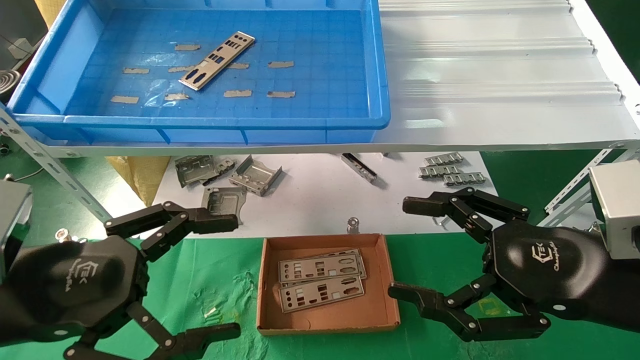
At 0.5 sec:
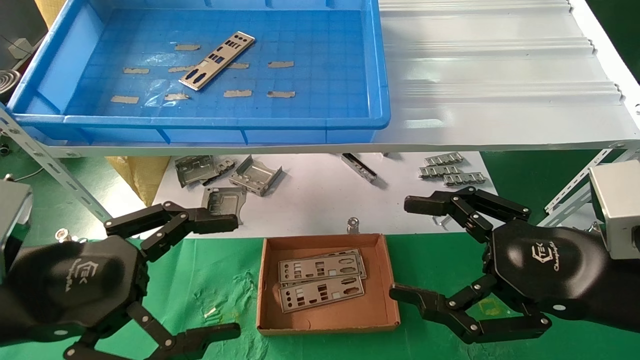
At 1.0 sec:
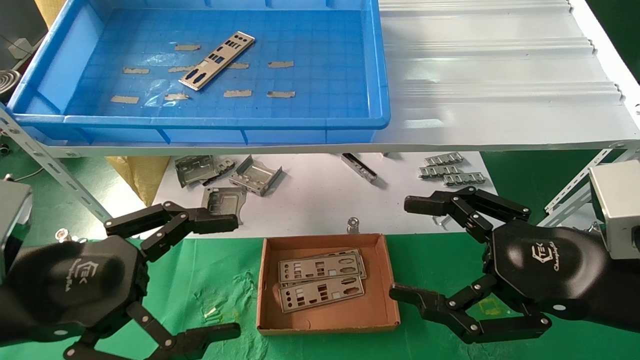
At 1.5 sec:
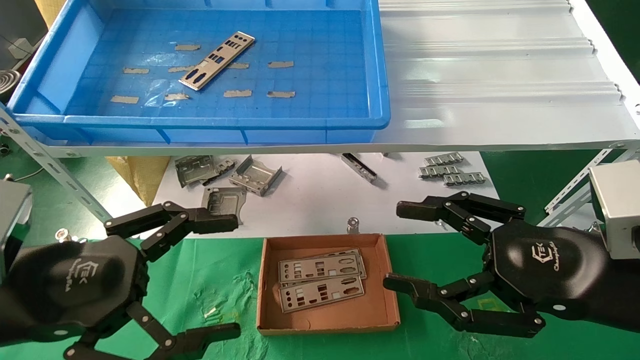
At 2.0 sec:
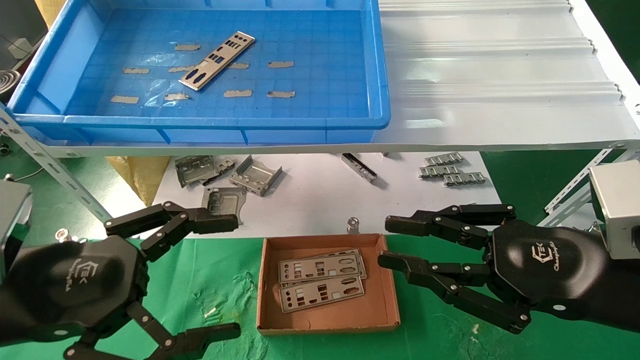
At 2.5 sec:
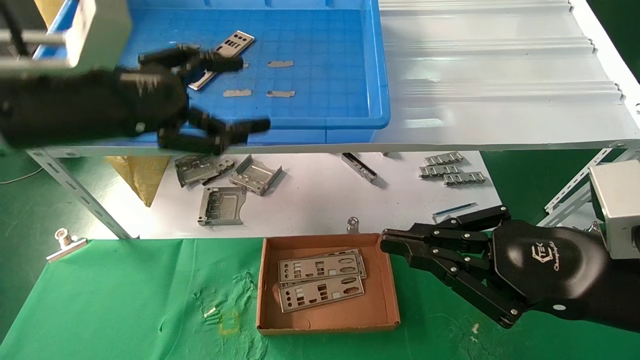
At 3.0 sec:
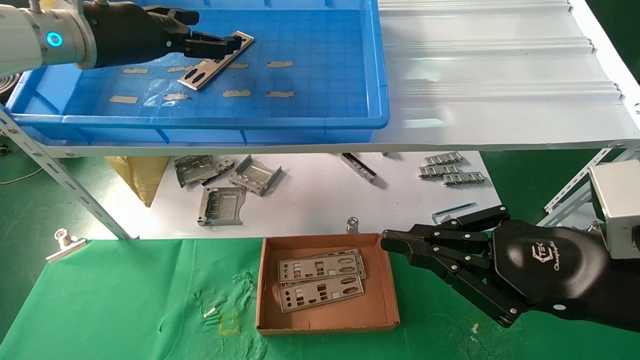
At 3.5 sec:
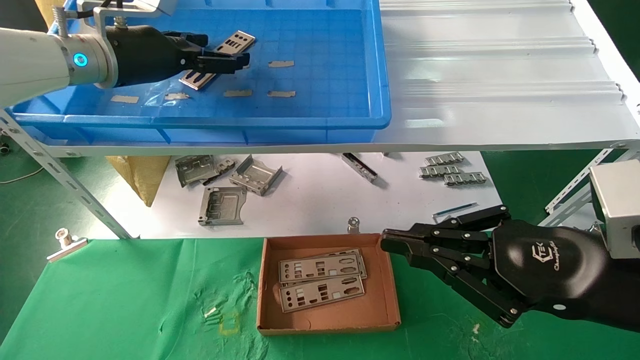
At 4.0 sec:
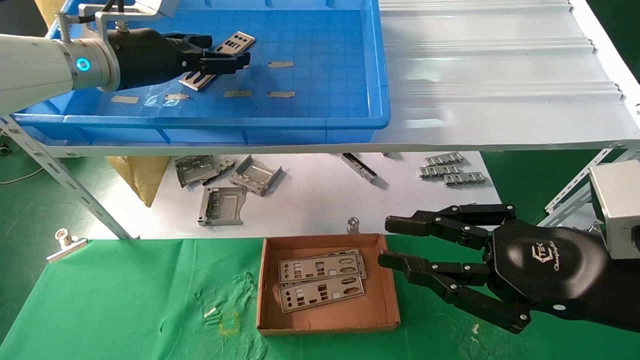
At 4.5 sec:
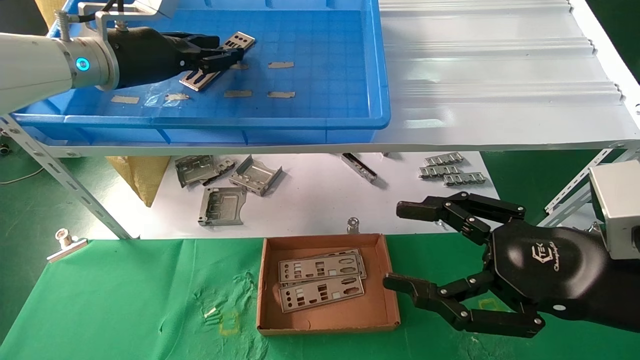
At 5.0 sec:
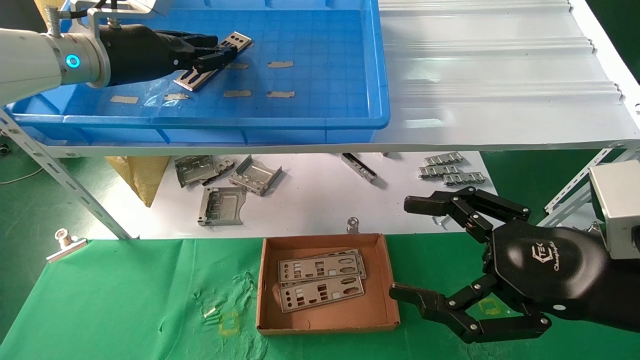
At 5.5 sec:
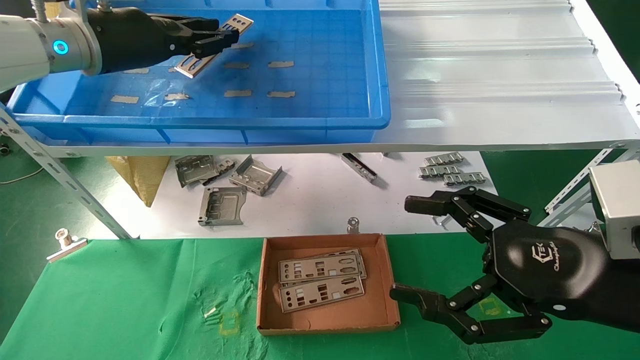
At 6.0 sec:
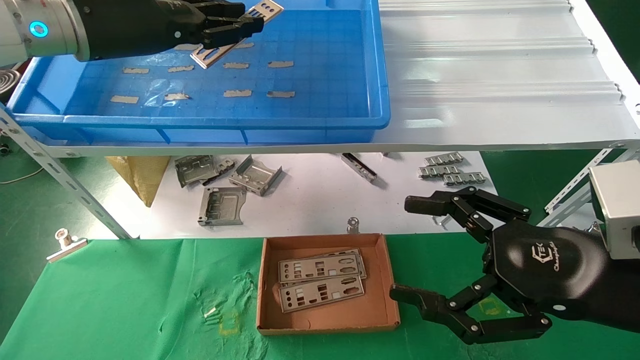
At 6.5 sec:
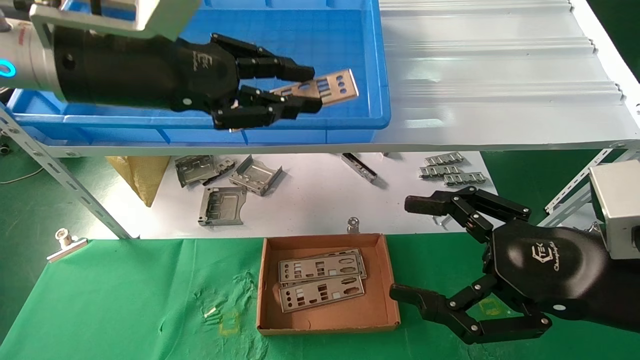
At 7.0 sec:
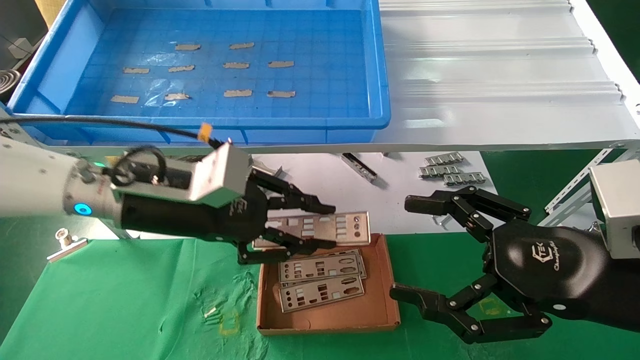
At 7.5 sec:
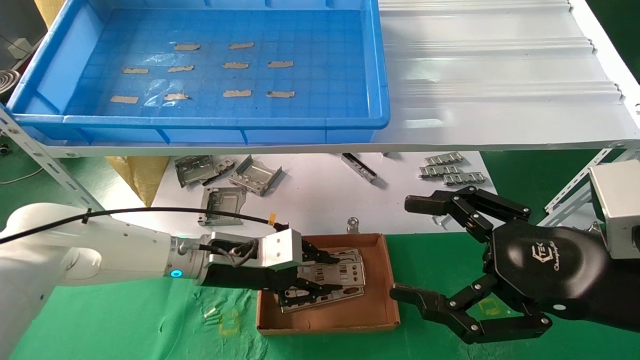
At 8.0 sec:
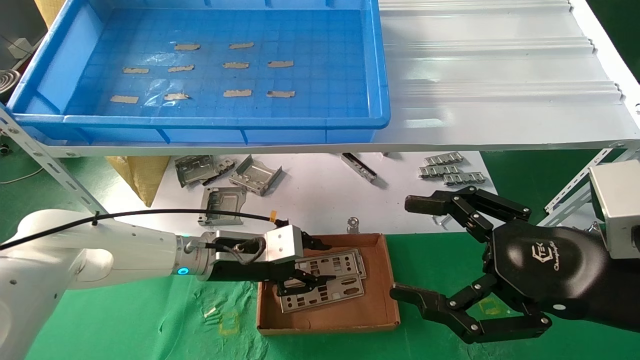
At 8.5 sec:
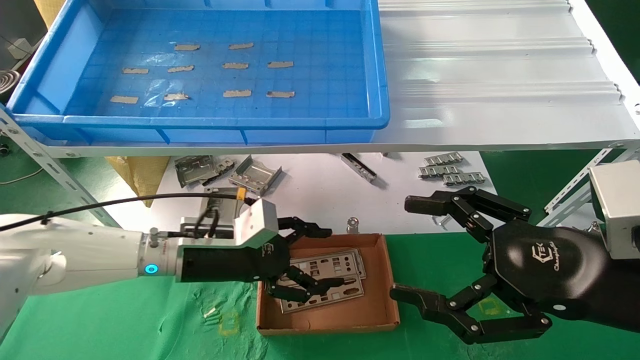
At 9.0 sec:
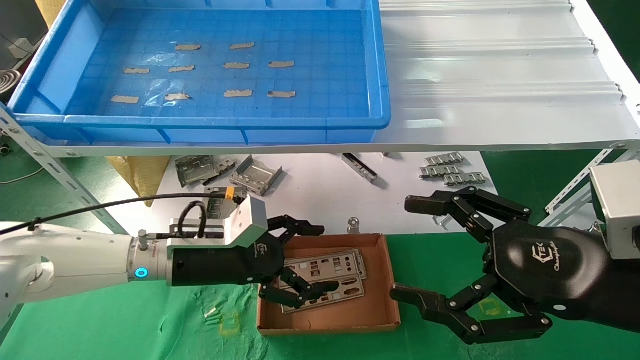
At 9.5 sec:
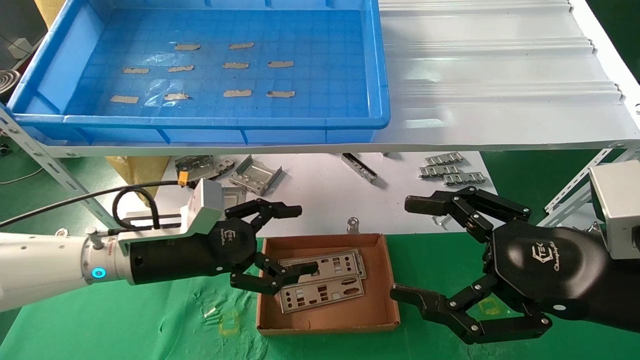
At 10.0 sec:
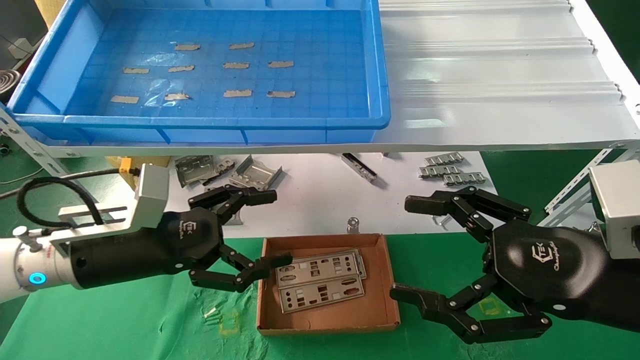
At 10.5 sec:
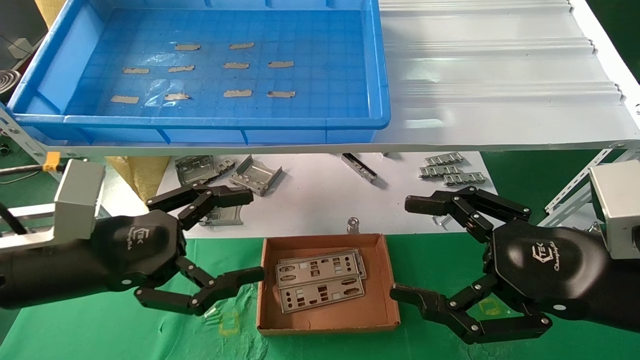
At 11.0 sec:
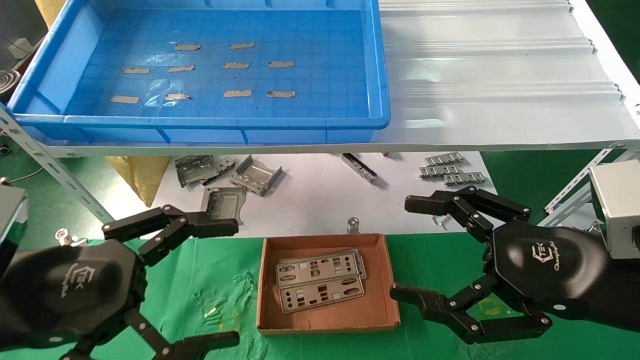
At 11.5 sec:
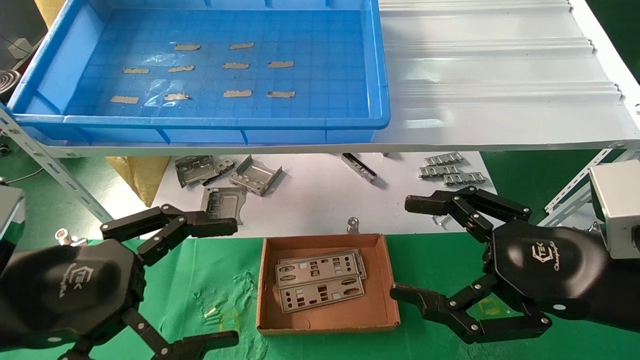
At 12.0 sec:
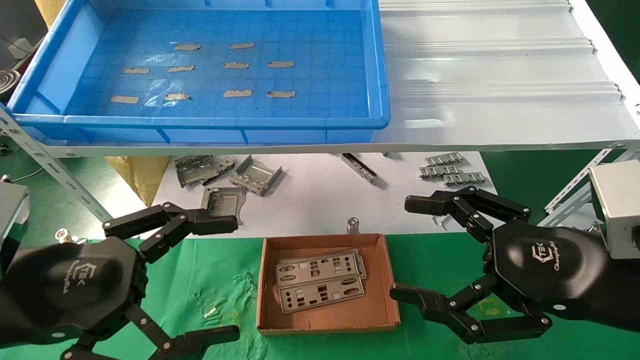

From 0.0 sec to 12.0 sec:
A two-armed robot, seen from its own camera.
Task of the whole recording: pick up the parts on the tray and put them in the cardboard box.
Step, from 2.5 sec to 5.0 sec: Pick up the IO bracket from the container box.
Step, from 5.5 sec to 8.0 sec: Place the IO bracket into the ingredient slot.
From 0.0 sec to 2.0 sec: The right gripper closes.
From 2.0 sec to 4.0 sec: The left gripper travels forward and upward by about 30 cm.
From 4.0 sec to 6.0 sec: The right gripper opens its fingers. The left gripper goes roughly 5 cm backward, and closes its fingers.
From 6.0 sec to 8.0 sec: The left gripper travels downward by about 30 cm.
From 8.0 sec to 10.0 sec: The left gripper goes roughly 15 cm backward, to the left and upward, and opens.
From 10.0 sec to 12.0 sec: The left gripper heads backward, covering some 10 cm.

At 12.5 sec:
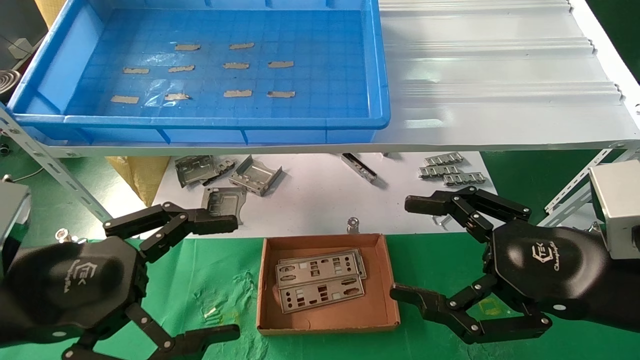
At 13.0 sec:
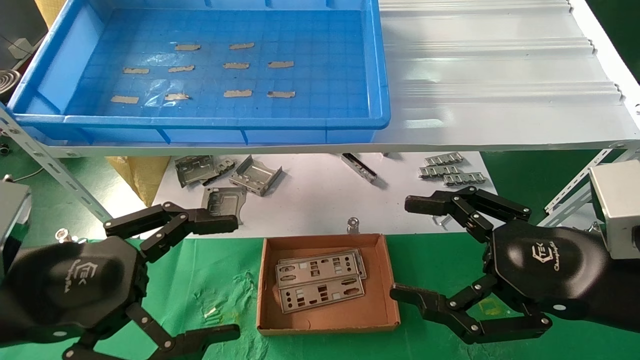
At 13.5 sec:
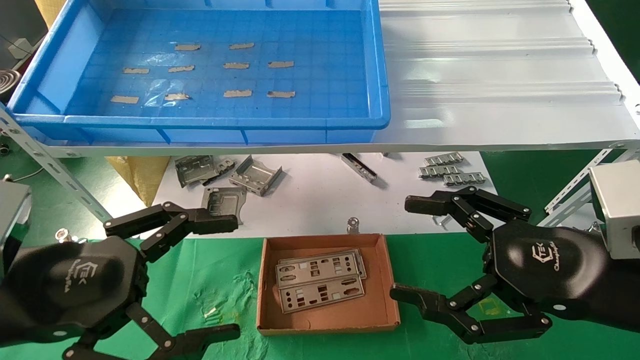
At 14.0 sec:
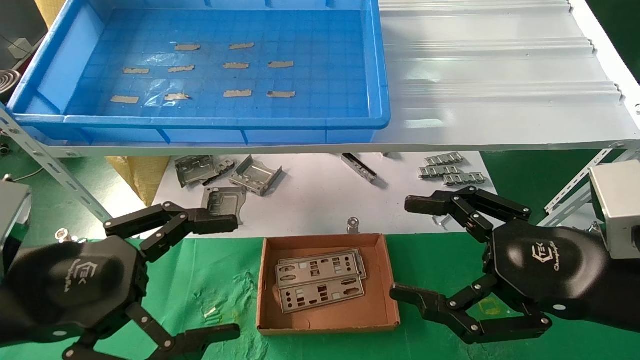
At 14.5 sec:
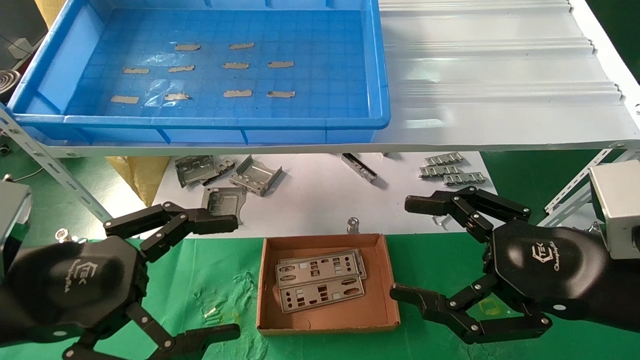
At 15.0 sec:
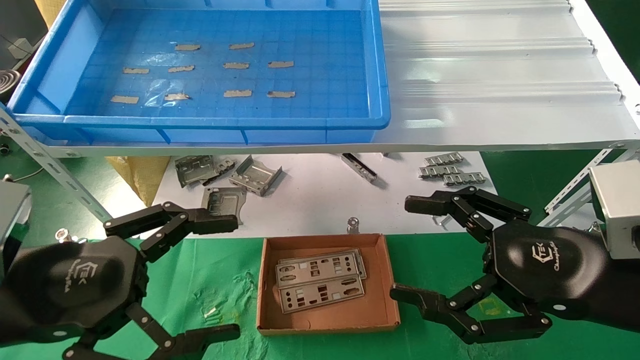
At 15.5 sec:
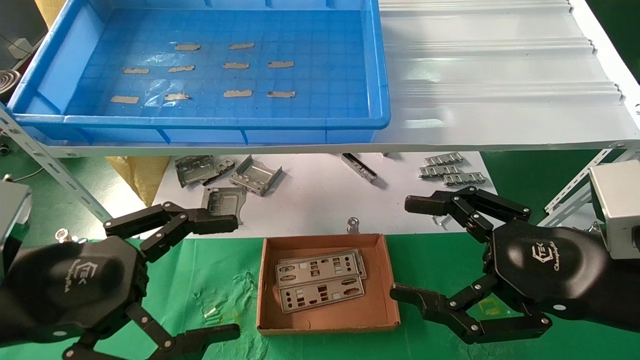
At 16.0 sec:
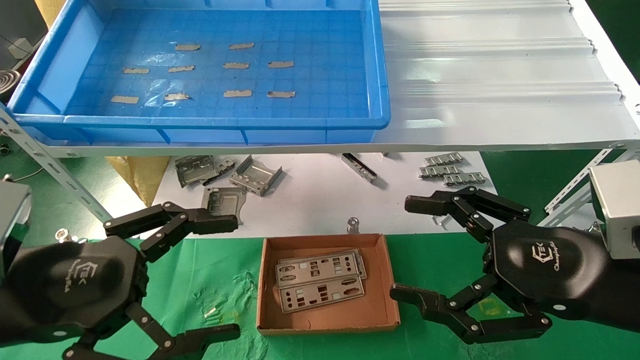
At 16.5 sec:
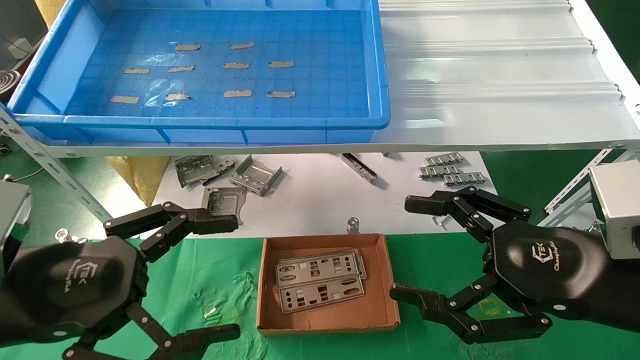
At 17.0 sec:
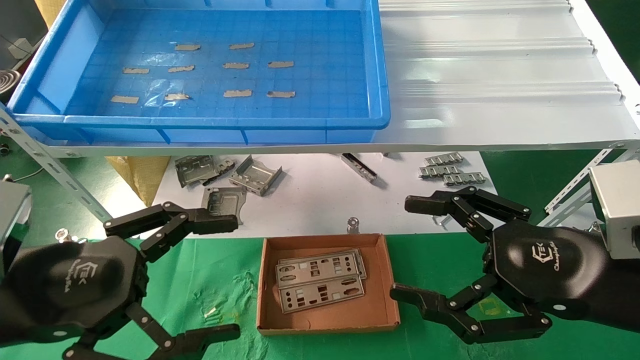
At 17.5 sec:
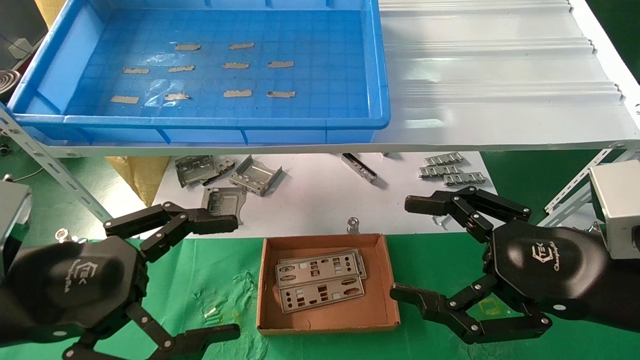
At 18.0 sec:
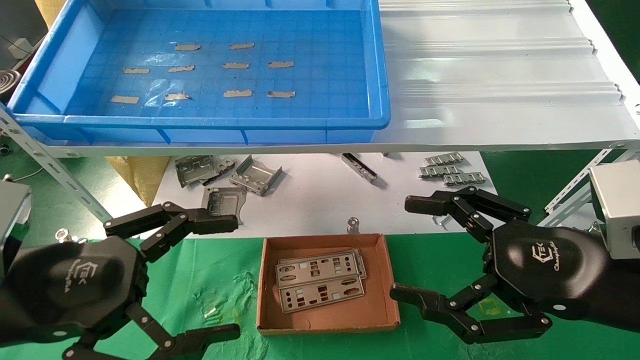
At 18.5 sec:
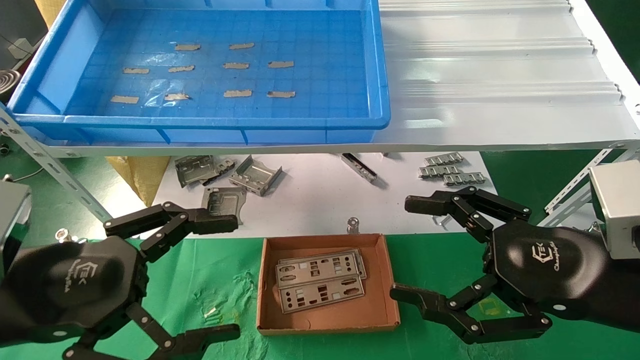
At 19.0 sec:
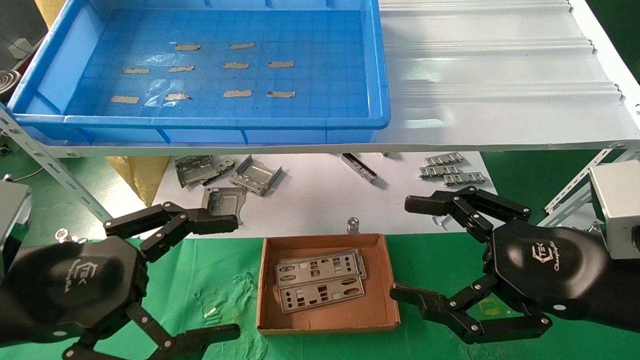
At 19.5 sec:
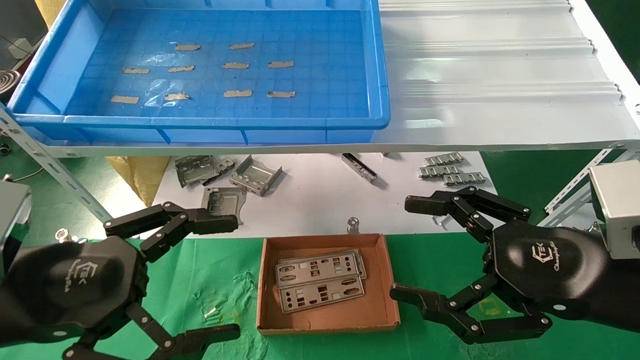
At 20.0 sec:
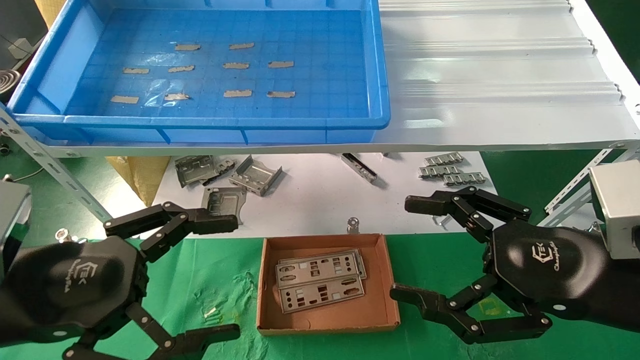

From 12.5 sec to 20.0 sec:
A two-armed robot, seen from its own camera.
Task of the whole recording: pick up the parts on the tray and put them in the cardboard box.
From 12.5 sec to 20.0 sec: The two grippers keep their place.
